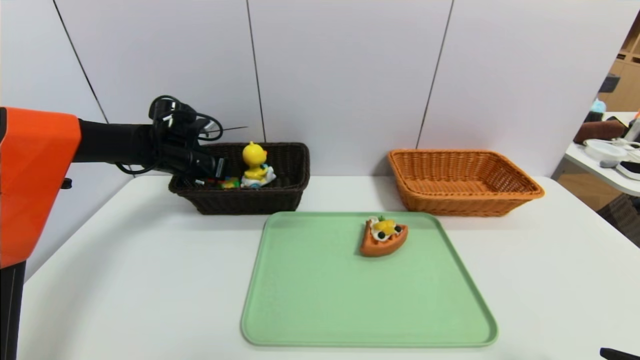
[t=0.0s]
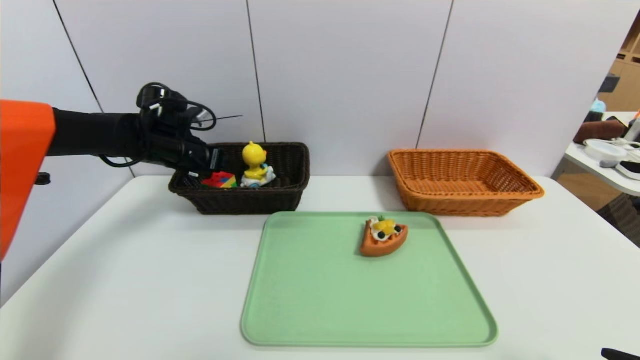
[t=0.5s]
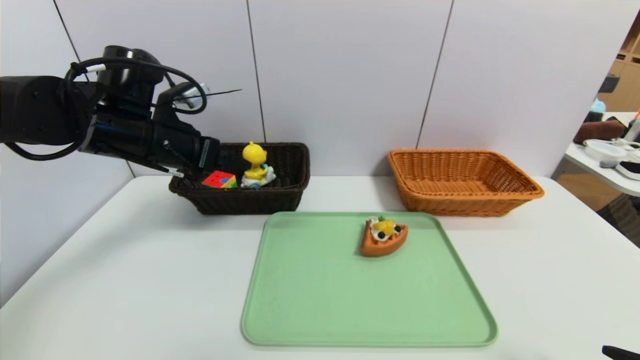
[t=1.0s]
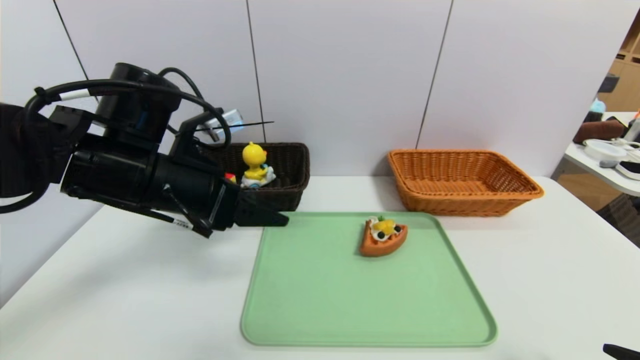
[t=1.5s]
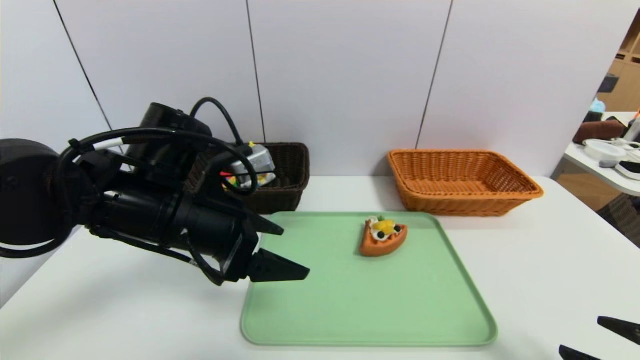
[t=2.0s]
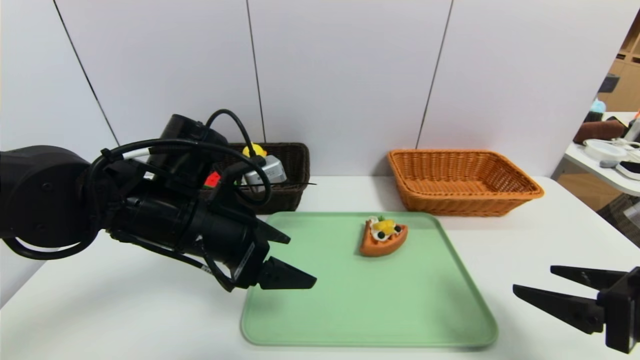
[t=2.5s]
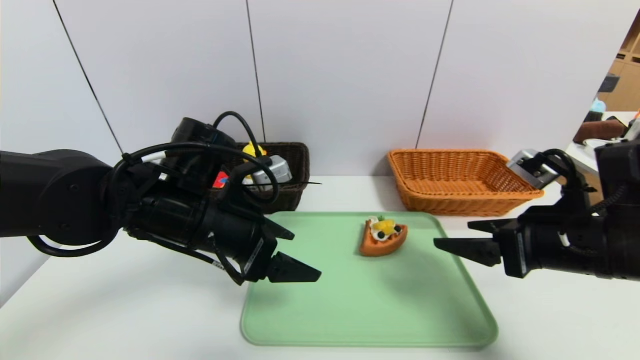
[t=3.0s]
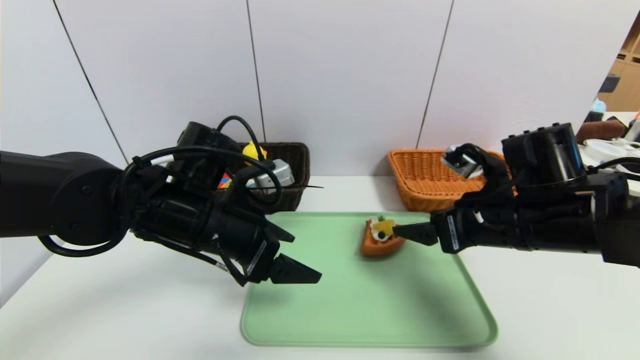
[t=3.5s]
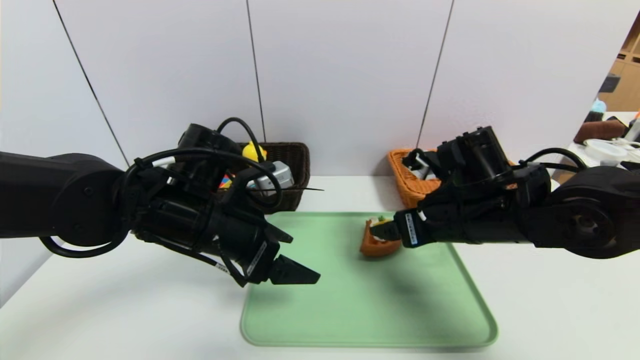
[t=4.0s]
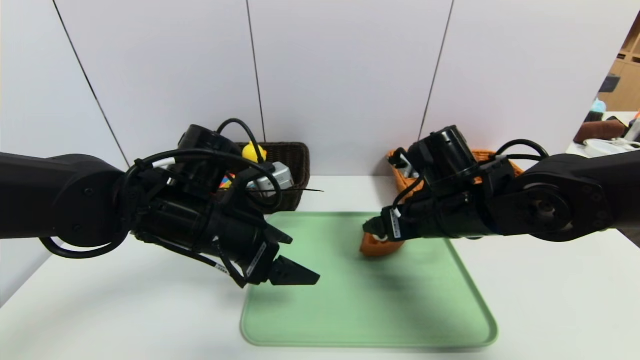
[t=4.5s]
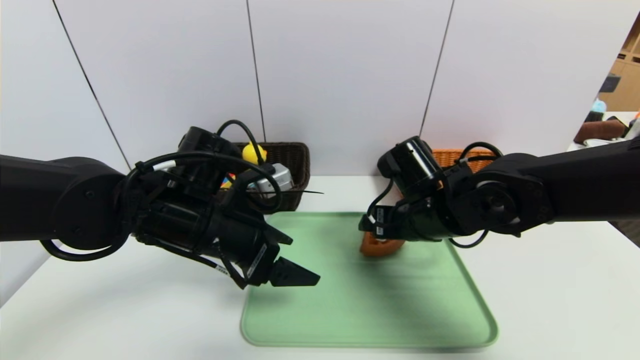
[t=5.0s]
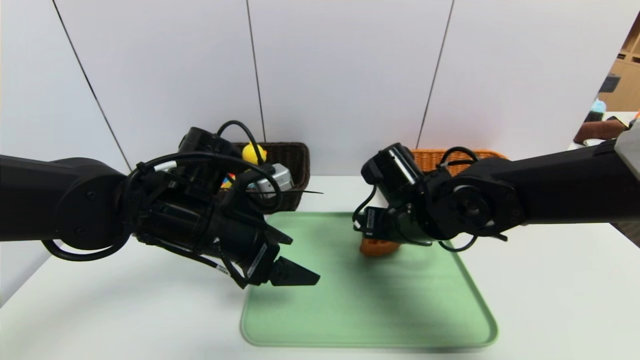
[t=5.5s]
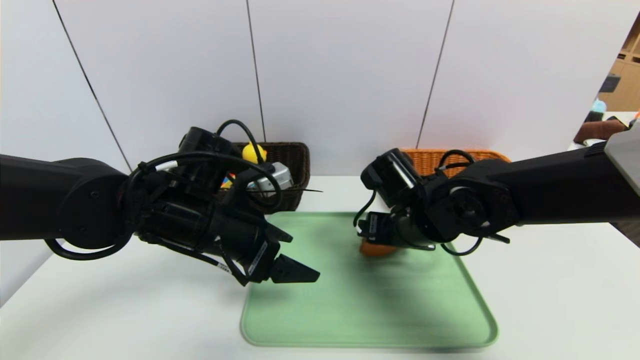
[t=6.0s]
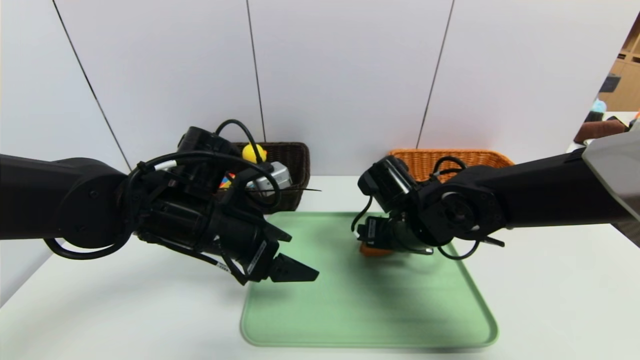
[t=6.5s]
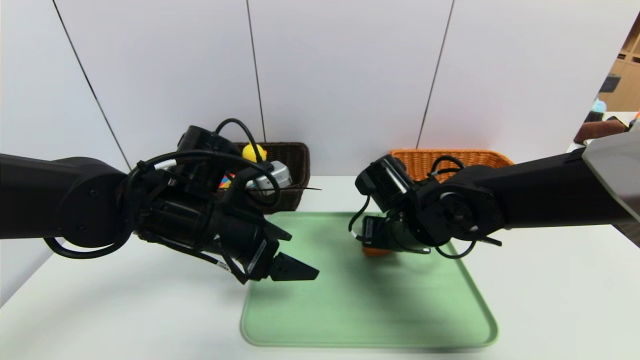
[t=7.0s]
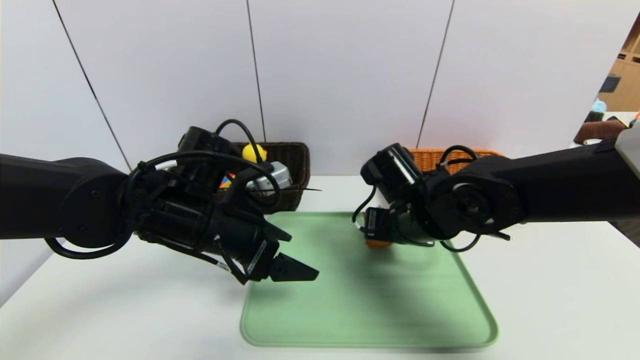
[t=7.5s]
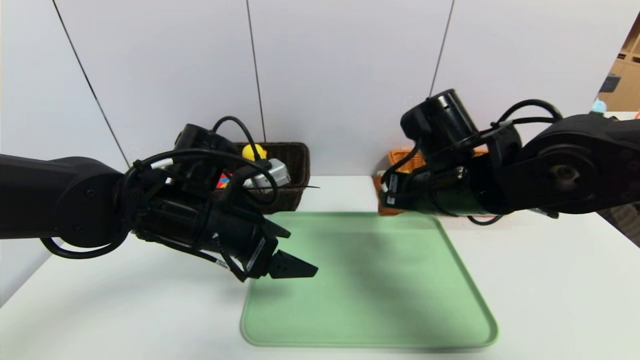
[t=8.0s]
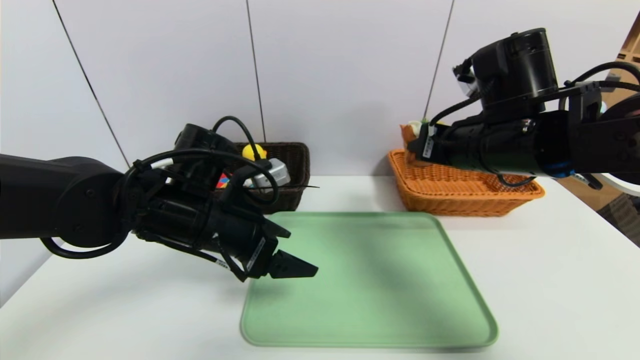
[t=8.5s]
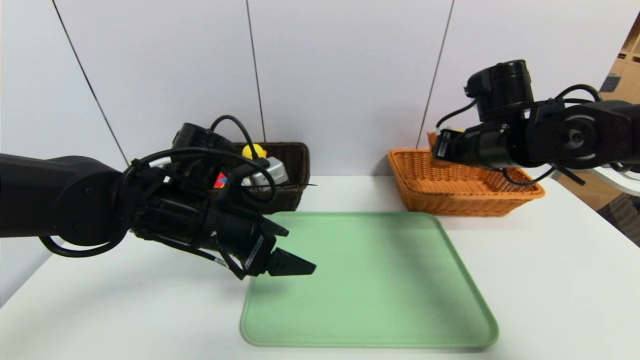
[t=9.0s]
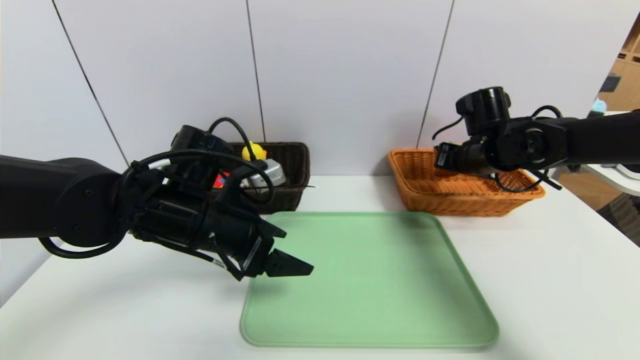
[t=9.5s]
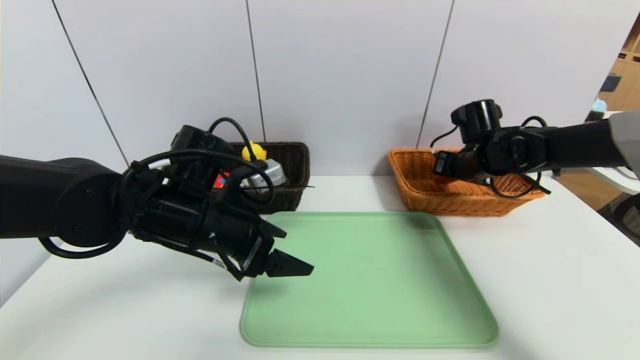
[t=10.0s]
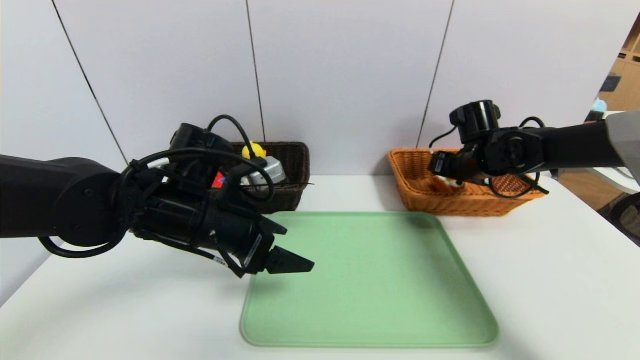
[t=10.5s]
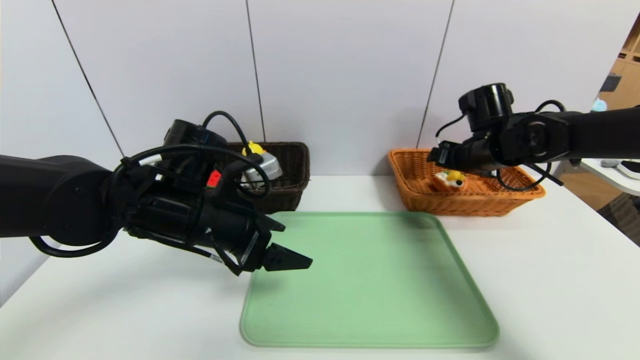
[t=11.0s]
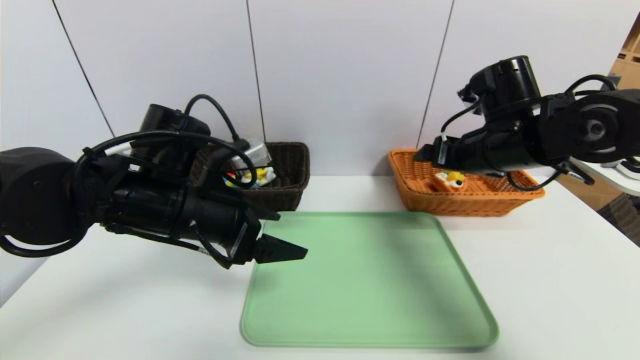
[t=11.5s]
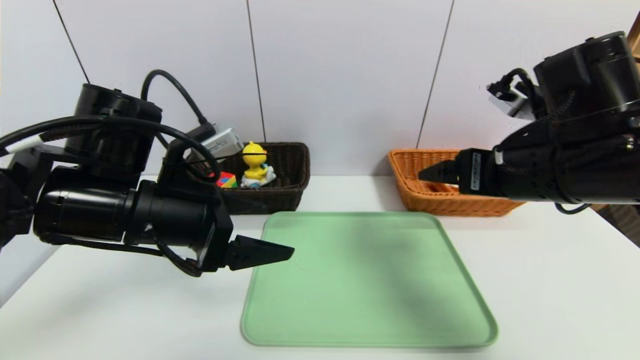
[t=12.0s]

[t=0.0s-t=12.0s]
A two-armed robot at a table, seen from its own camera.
Task of the whole recording: place the food in the right basket with the right gripper, and place the non food items in the left basket with the left gripper.
Step, t=0.5s to t=10.5s: Grasp the triangle cake and put it in the right basket.
t=0.0s to t=2.0s: The left gripper heads backward and to the right, covering roughly 25 cm, and opens its fingers.
t=2.0s to t=4.0s: The right gripper goes some 25 cm forward and to the left.
t=4.0s to t=6.0s: The right gripper is displaced to the left by roughly 5 cm.
t=6.0s to t=8.0s: The right gripper heads upward, covering roughly 5 cm, and closes.
t=8.0s to t=10.0s: The right gripper heads forward and to the right, covering approximately 20 cm.
t=10.0s to t=12.0s: The left gripper moves upward, approximately 5 cm. The right gripper shifts roughly 25 cm backward and upward, and opens up.

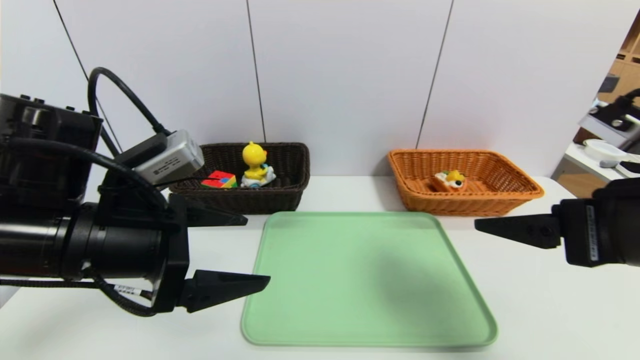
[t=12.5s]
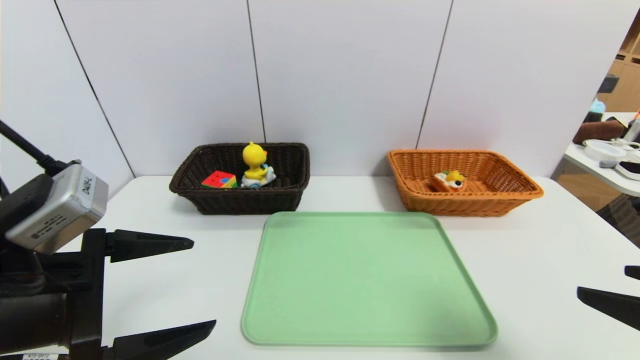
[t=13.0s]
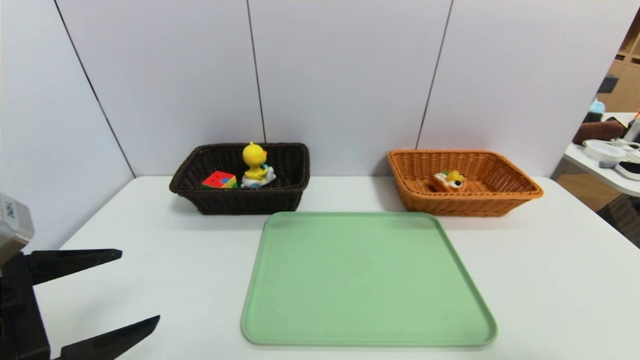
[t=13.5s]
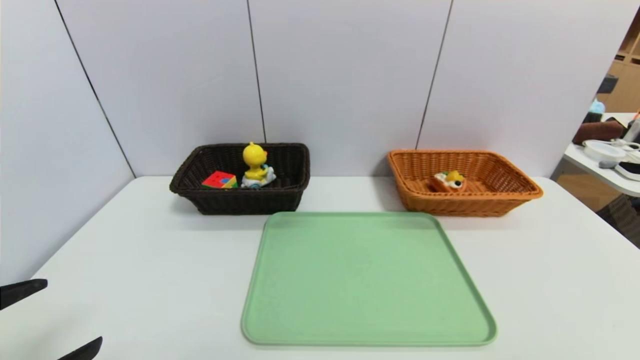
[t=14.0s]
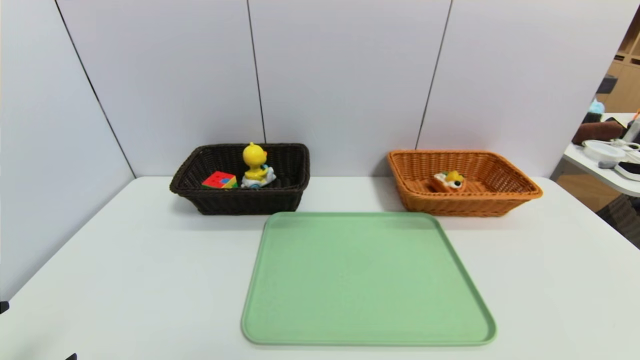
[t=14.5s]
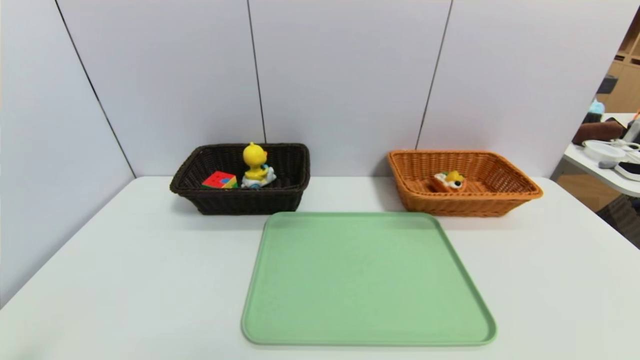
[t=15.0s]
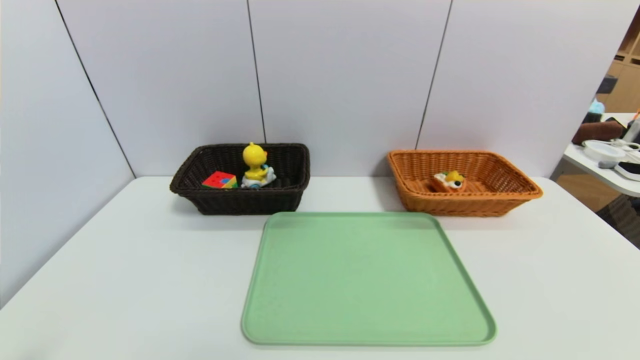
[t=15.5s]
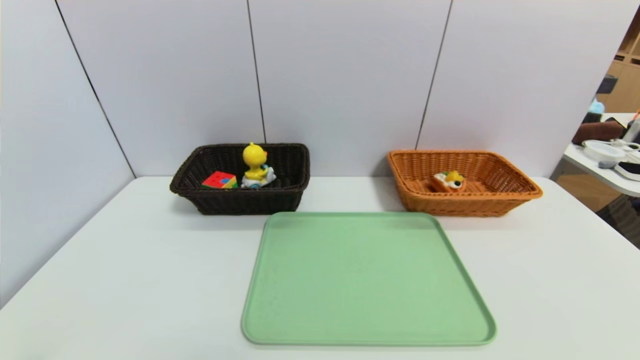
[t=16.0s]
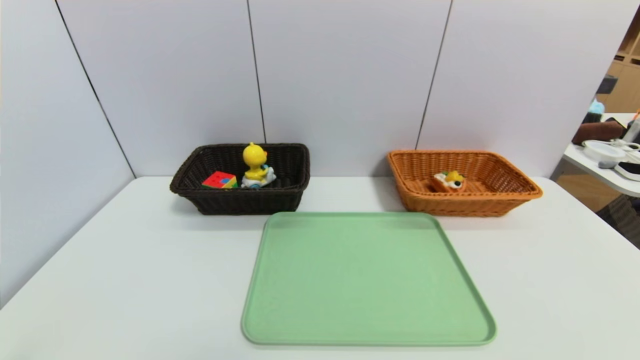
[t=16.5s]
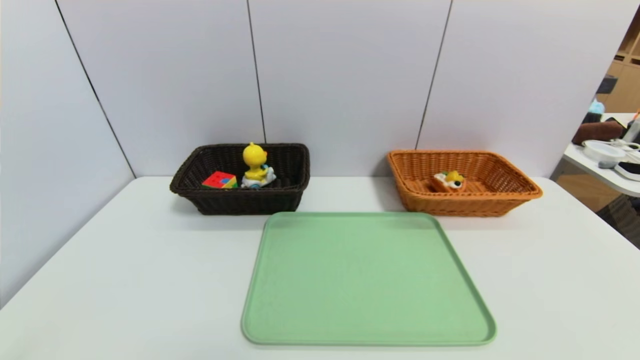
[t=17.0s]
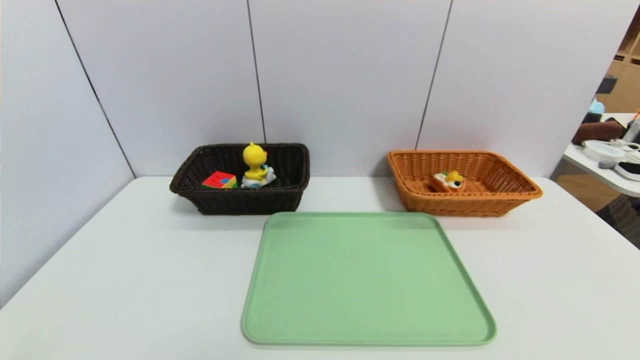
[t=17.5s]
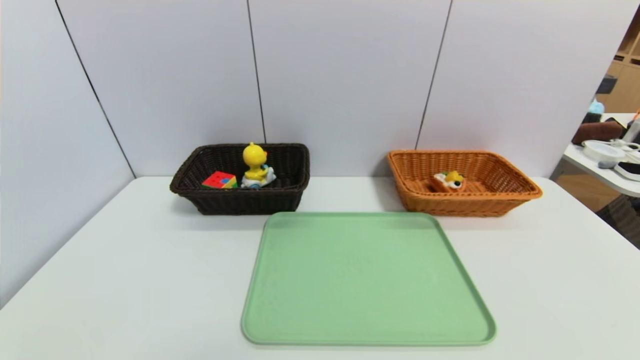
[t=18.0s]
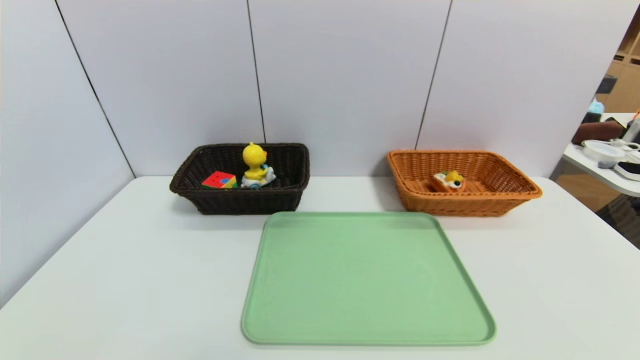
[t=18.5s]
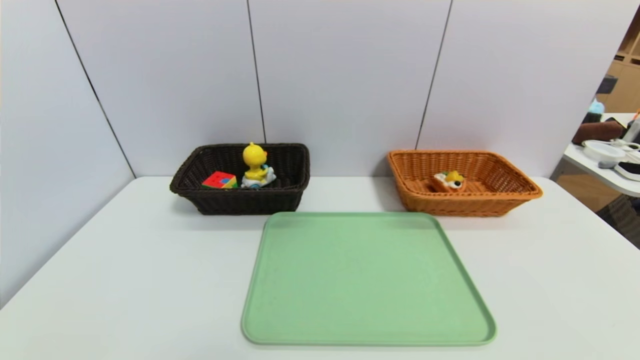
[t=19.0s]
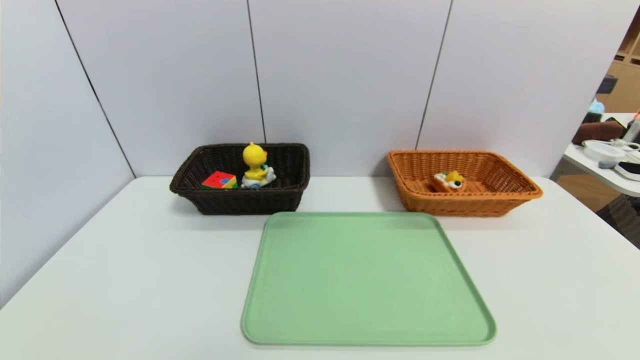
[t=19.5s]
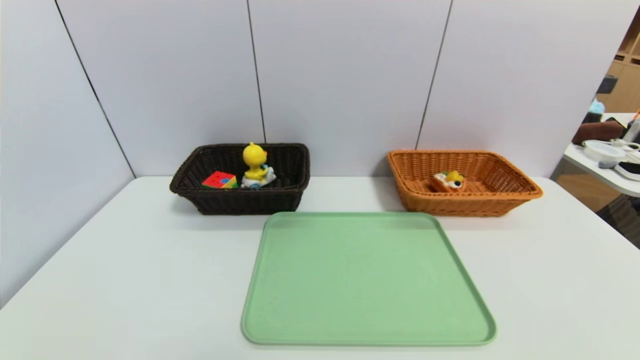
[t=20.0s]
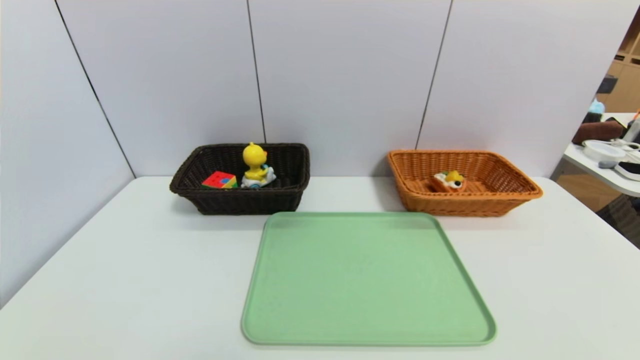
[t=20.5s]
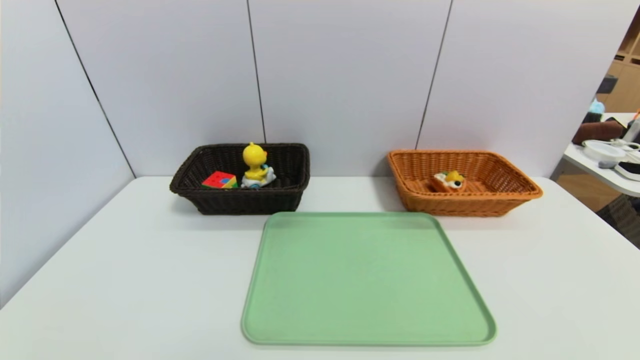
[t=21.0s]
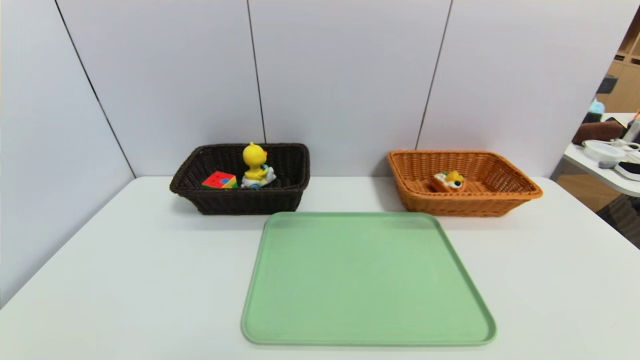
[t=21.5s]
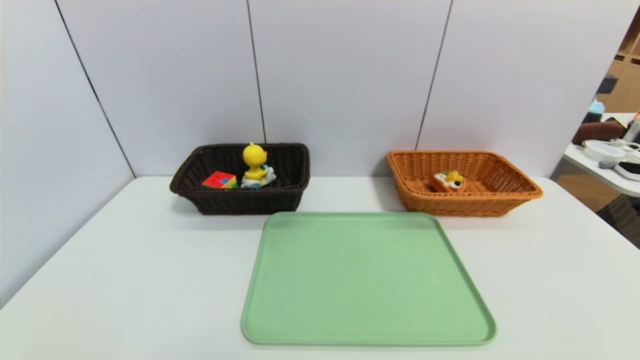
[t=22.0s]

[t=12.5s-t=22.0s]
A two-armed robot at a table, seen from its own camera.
Task of the whole recording: place the food in the right basket with the right gripper, and place the non food items in the left basket with the left gripper.
t=12.5s to t=14.5s: The left gripper moves backward and to the left, some 20 cm; the right gripper heads backward and to the right, covering roughly 20 cm.
